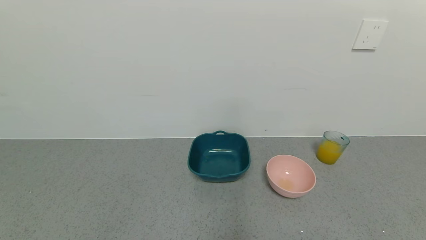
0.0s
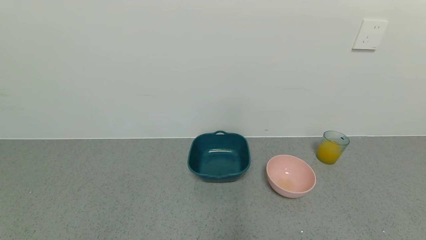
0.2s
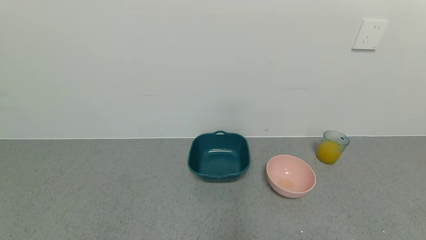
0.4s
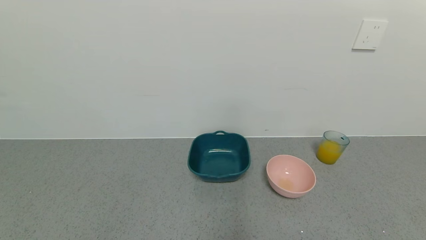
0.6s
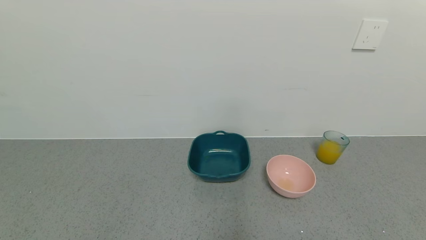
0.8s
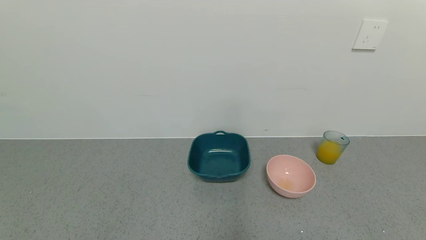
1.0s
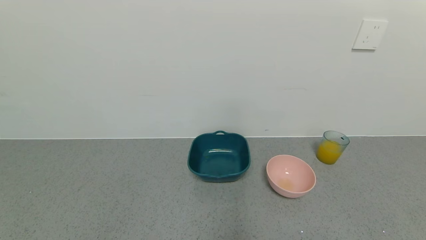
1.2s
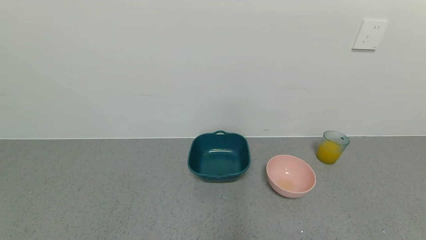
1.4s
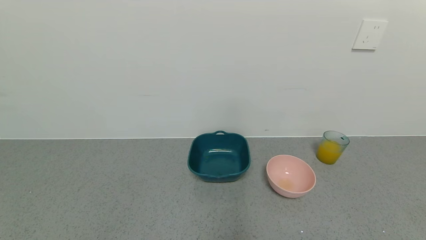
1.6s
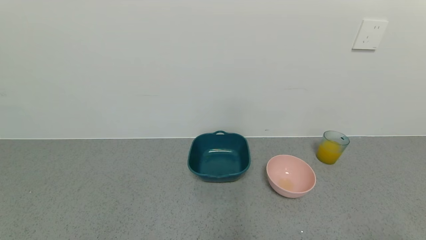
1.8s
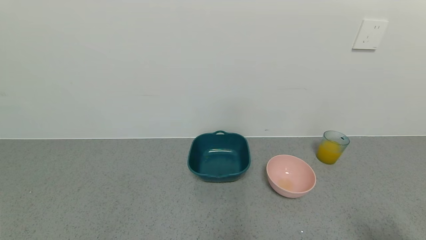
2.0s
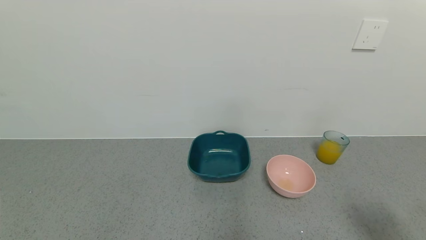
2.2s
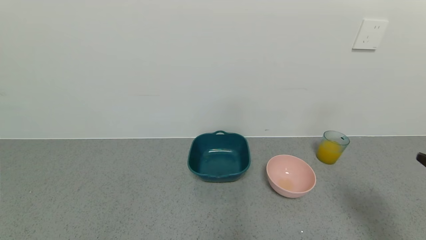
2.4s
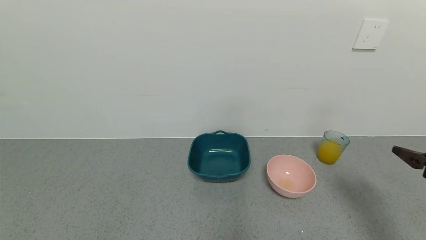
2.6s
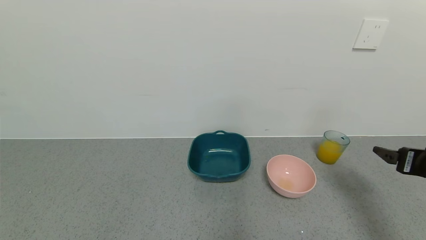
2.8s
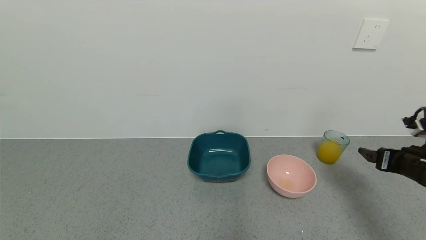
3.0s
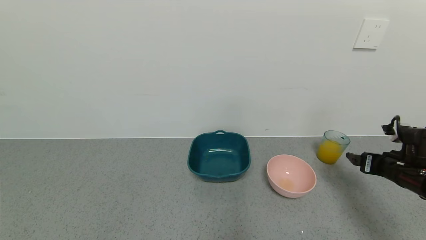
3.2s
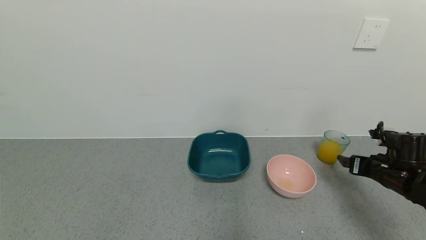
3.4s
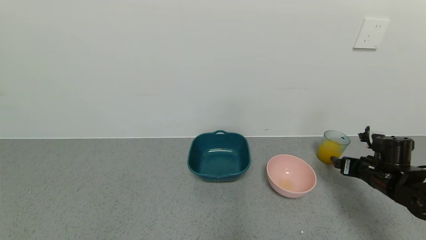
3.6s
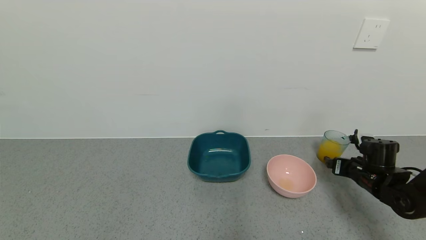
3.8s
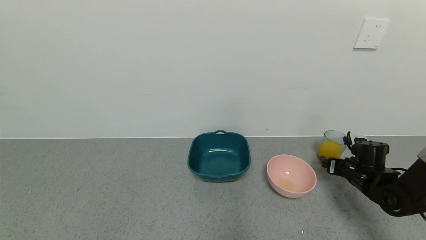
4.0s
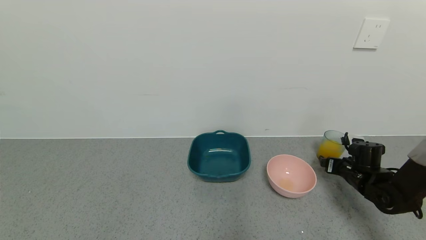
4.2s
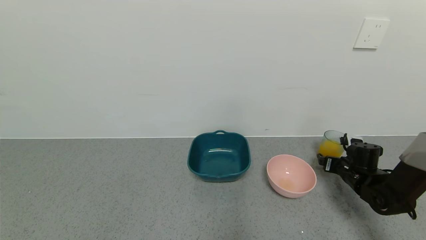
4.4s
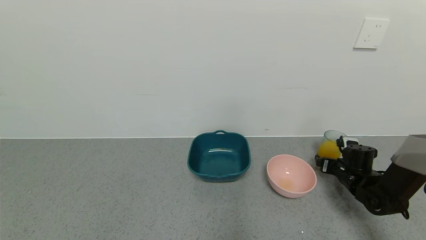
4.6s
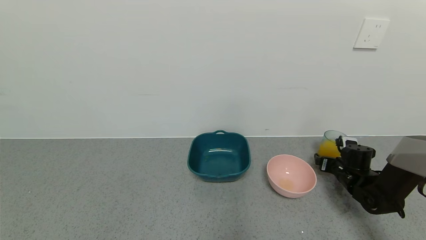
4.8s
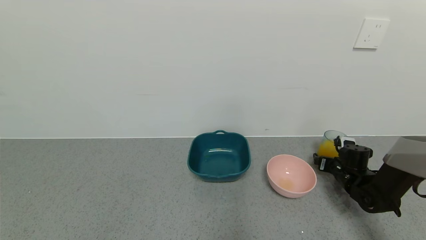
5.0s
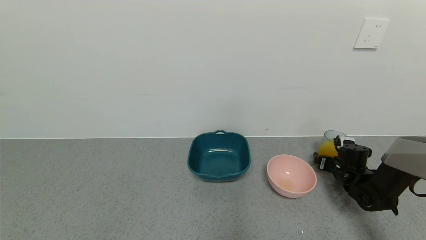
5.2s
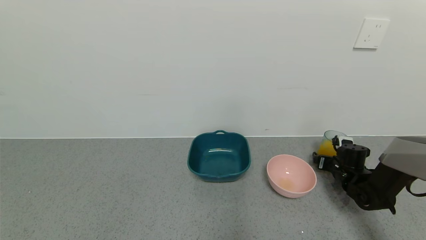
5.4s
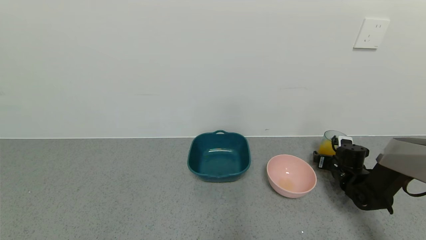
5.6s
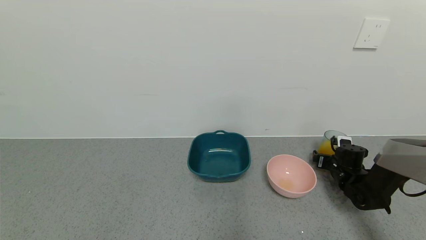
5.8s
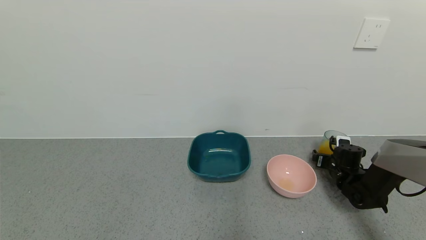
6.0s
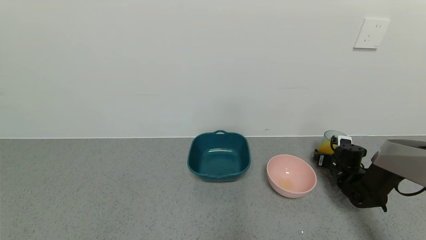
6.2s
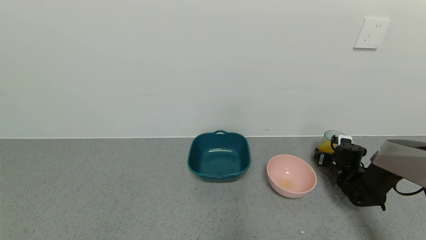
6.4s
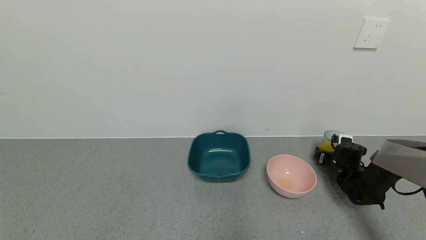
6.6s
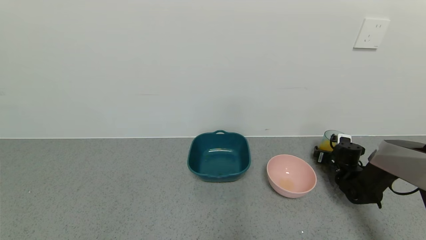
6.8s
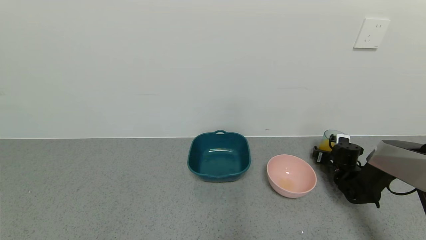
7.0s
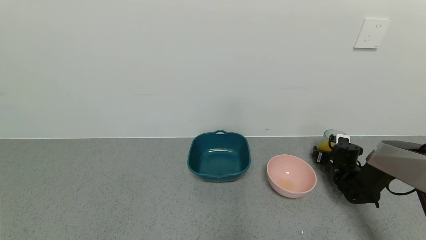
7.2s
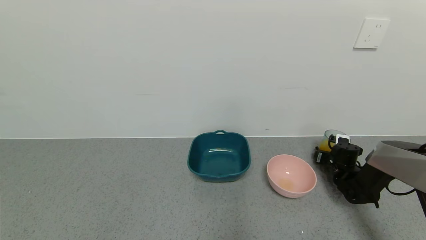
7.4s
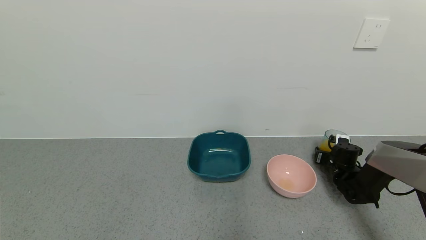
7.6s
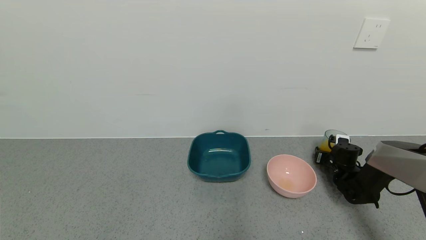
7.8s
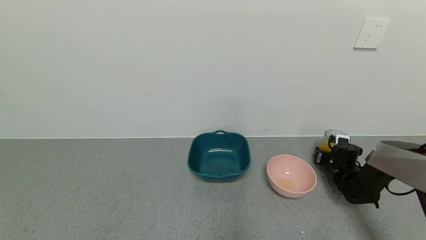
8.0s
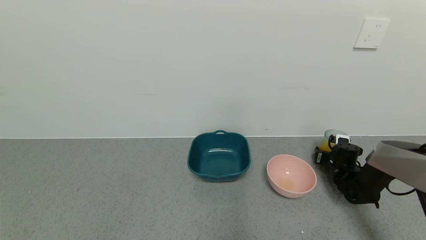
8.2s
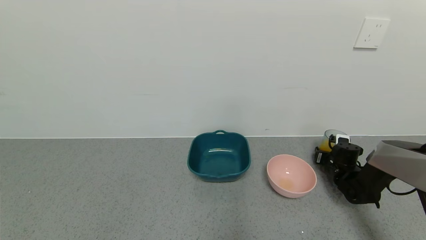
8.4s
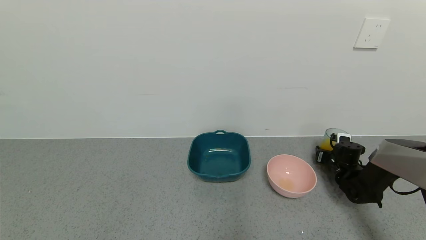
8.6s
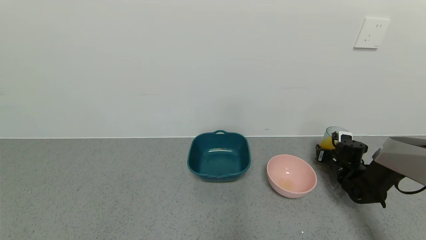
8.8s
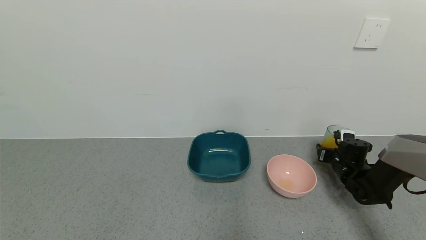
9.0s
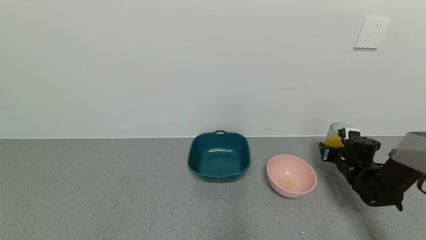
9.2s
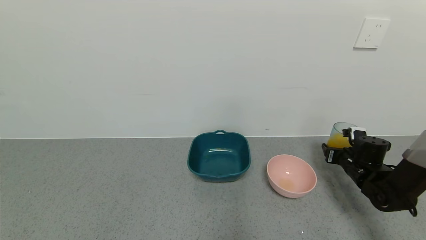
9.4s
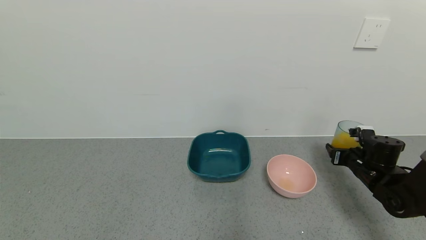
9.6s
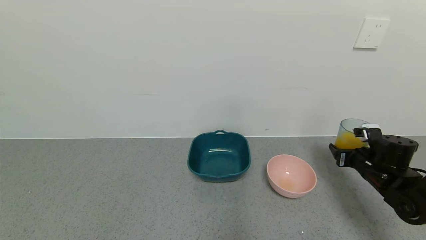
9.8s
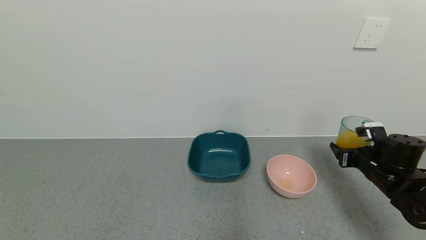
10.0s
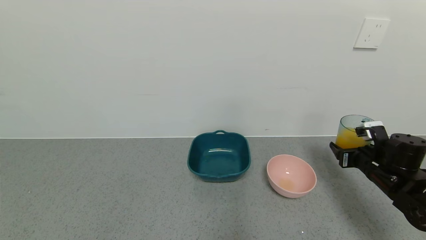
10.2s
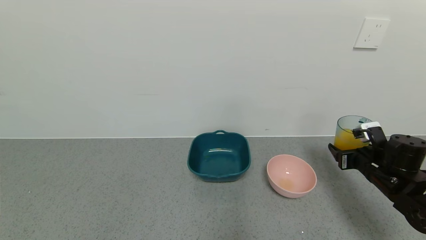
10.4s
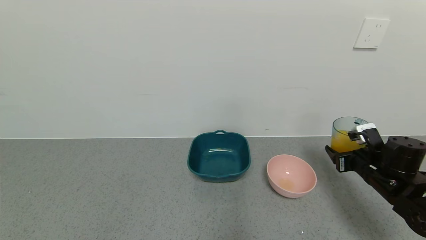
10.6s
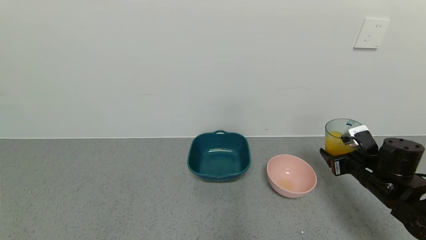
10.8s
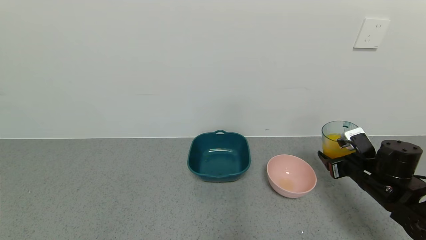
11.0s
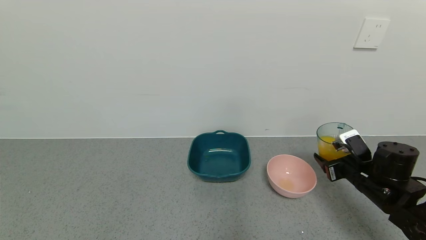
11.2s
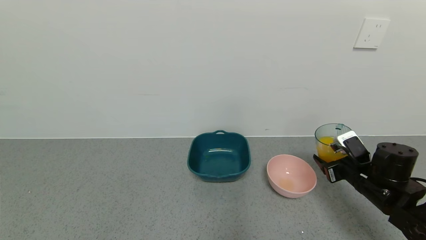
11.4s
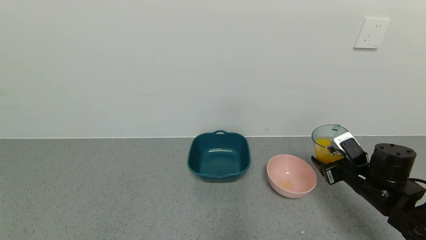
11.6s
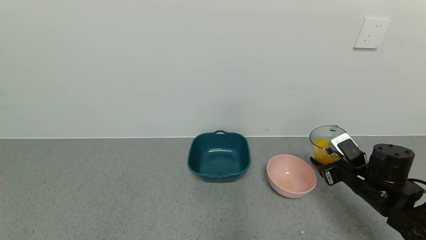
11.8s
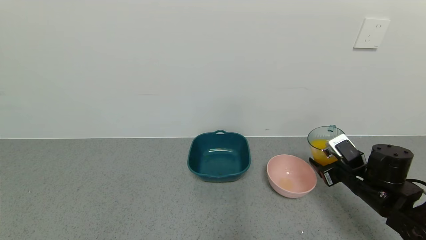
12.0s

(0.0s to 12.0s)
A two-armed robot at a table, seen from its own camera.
Task of the whole recording: use a gripper to pick up the cup and pour the liquid into a bowl or tray.
1.6s - 3.0s: The right gripper goes some 25 cm forward.
3.0s - 4.4s: The right gripper is displaced downward and forward by some 15 cm.
4.4s - 6.0s: The right gripper changes place by roughly 5 cm.
6.0s - 7.6s: The right gripper closes its fingers.
7.6s - 9.0s: The grippers stay close to where they were, moving slightly.
9.0s - 10.4s: The right gripper is displaced backward and upward by about 15 cm.
10.4s - 12.0s: The right gripper shifts by about 5 cm.

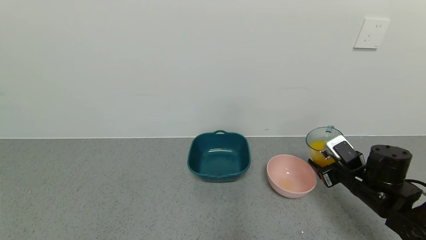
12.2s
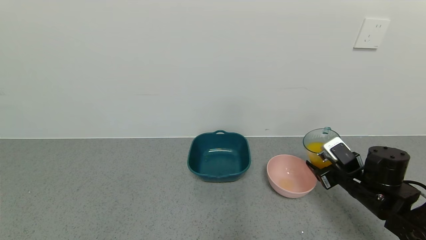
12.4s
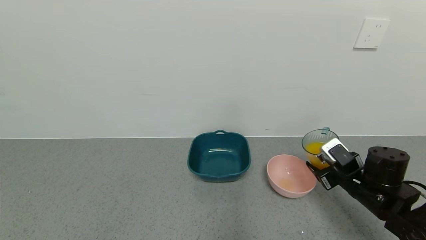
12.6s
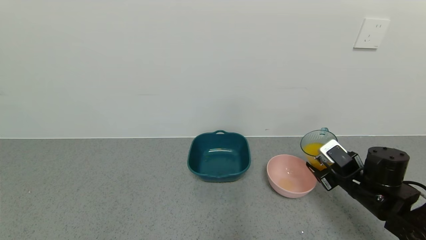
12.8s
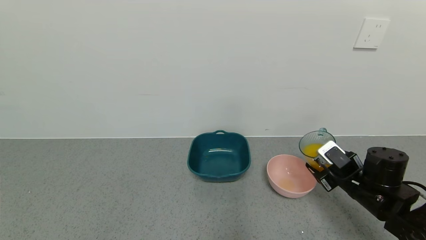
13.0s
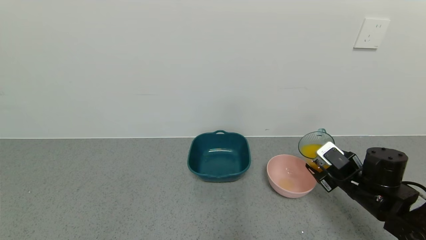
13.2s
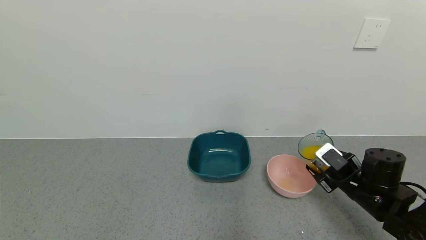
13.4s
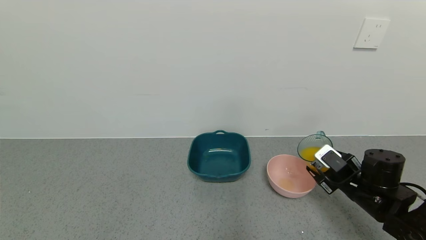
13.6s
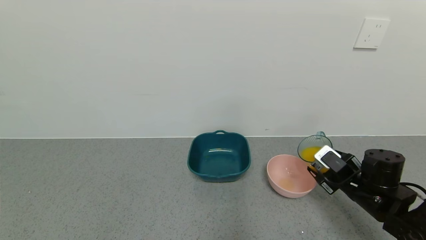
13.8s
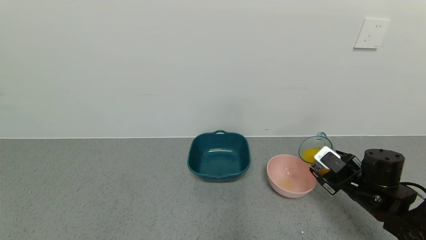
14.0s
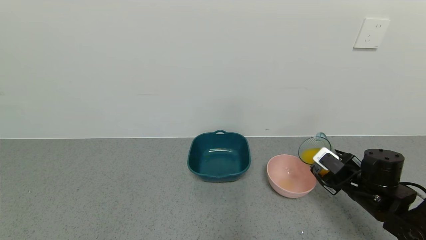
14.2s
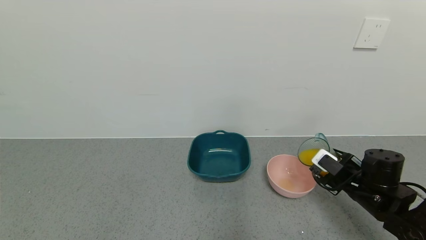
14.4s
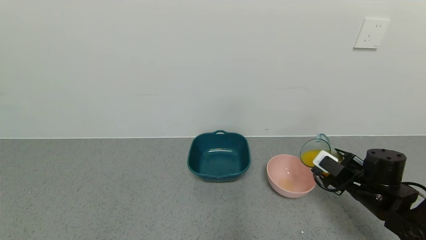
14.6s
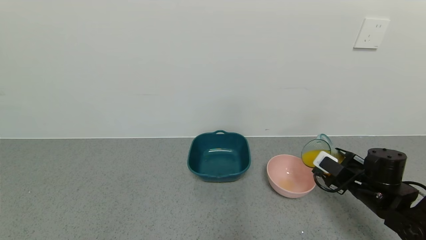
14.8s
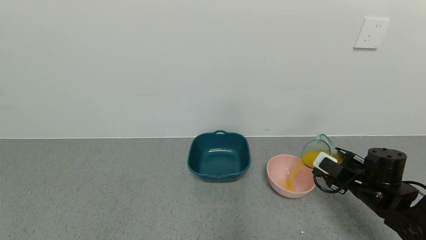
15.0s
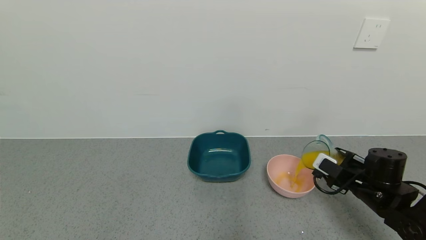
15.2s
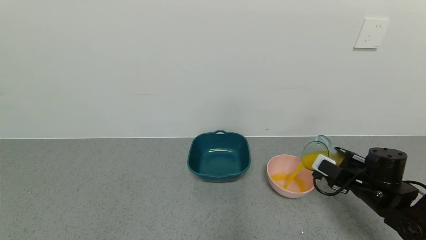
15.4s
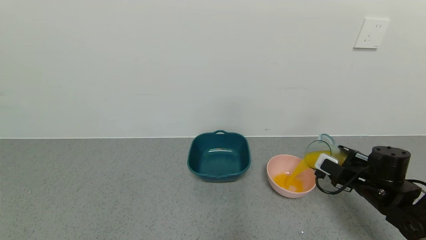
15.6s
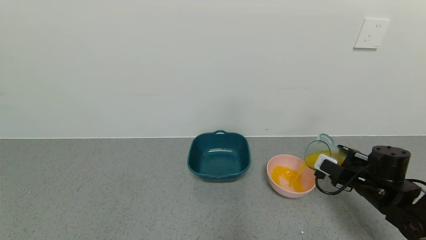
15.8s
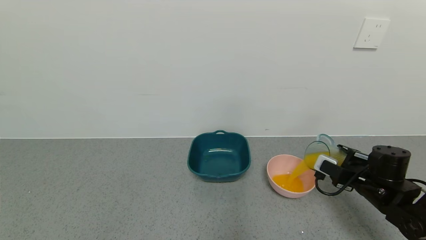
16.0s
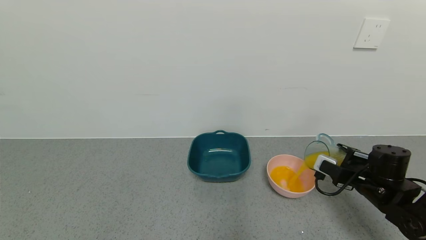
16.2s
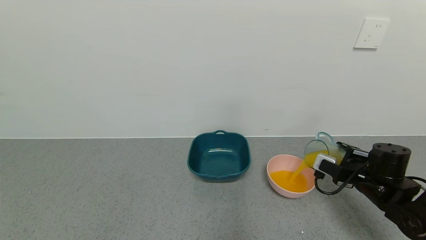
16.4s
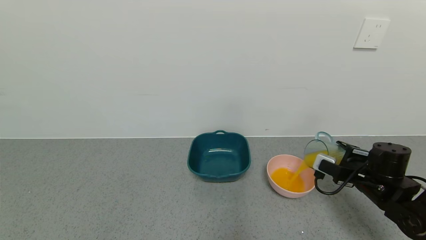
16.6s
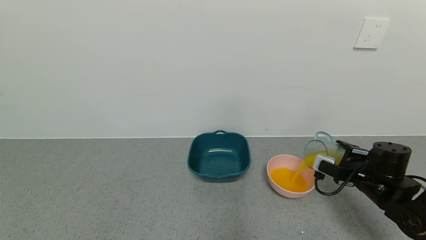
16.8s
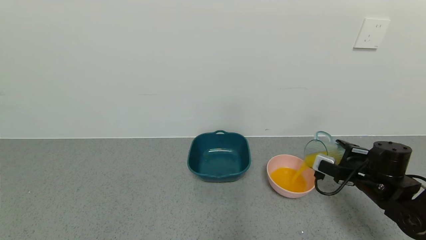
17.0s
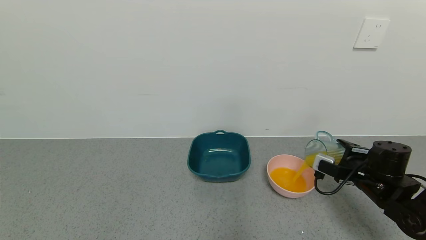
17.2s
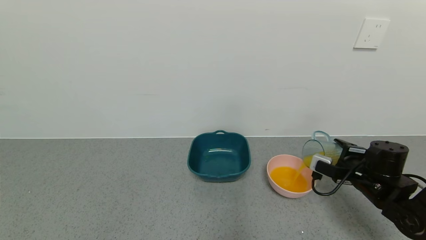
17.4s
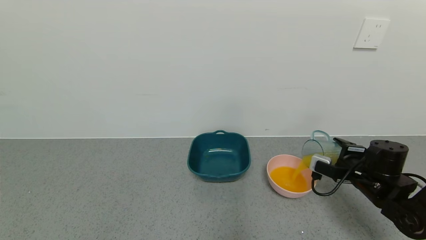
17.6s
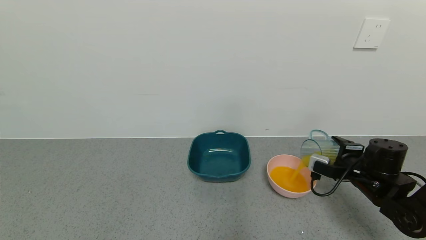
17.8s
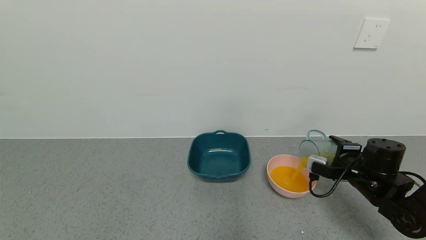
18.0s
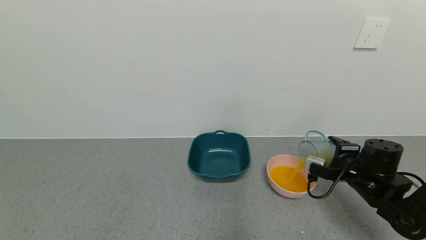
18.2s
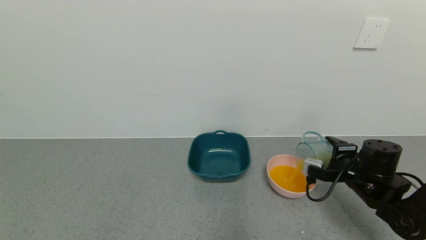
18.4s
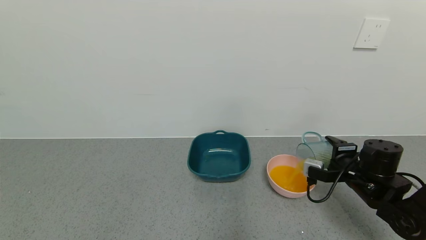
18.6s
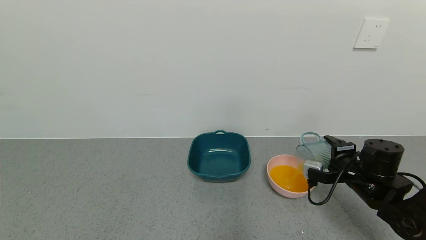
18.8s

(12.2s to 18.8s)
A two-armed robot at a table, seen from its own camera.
Task of the whole recording: use a gripper to pick up the cup and pour the liquid into a bowl or tray.
Step, 12.2s - 14.2s: Pick up blue cup filled with orange juice with right gripper.
12.2s - 13.8s: The grippers make only small movements.
15.4s - 17.2s: The grippers move only a little.
17.2s - 18.8s: The grippers move only a little.
